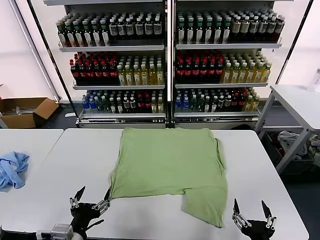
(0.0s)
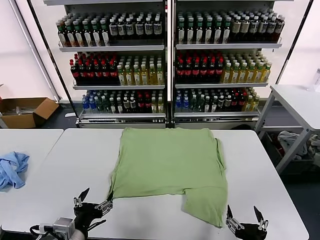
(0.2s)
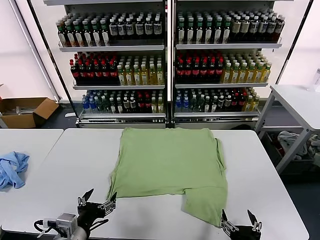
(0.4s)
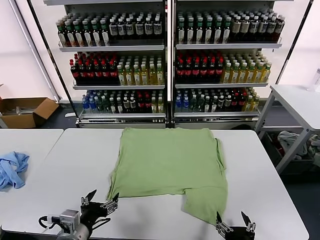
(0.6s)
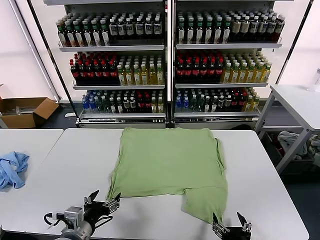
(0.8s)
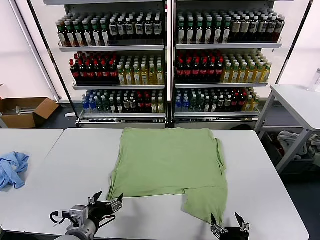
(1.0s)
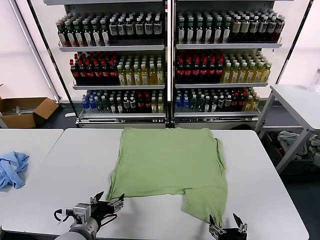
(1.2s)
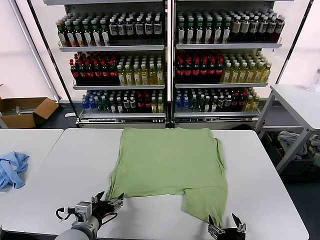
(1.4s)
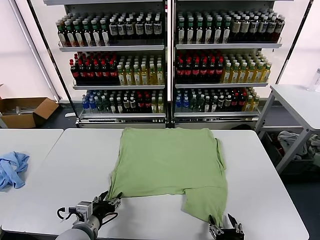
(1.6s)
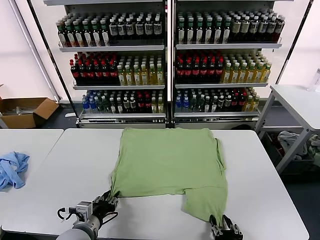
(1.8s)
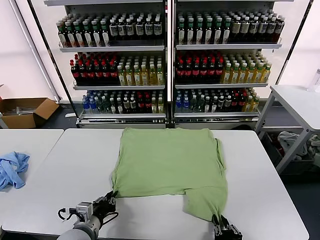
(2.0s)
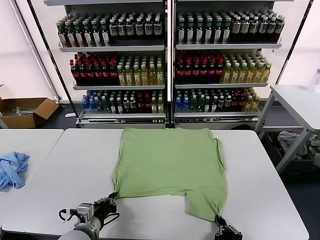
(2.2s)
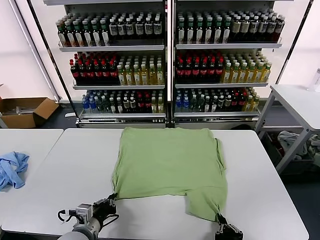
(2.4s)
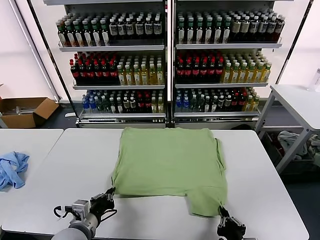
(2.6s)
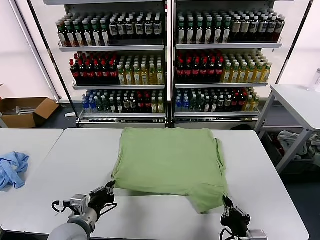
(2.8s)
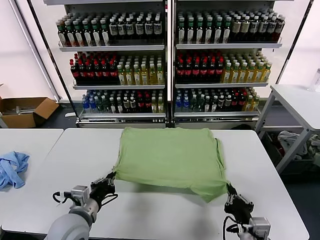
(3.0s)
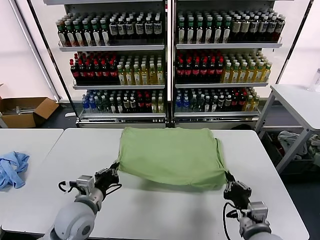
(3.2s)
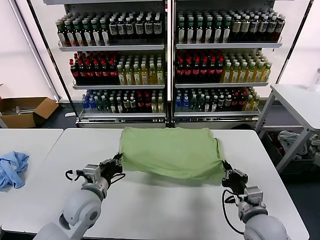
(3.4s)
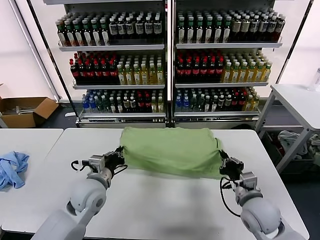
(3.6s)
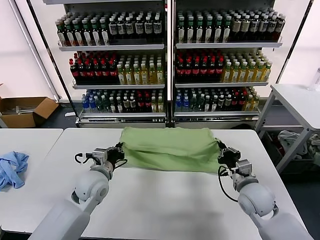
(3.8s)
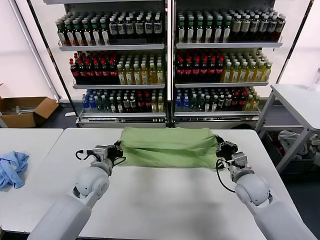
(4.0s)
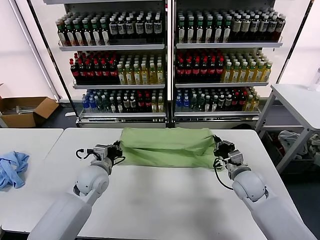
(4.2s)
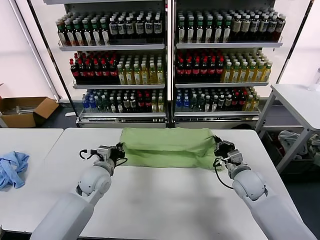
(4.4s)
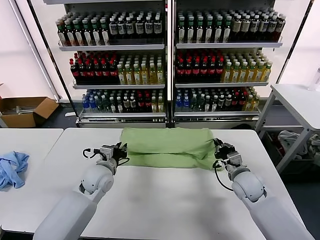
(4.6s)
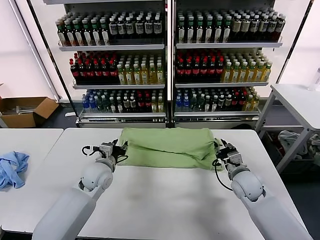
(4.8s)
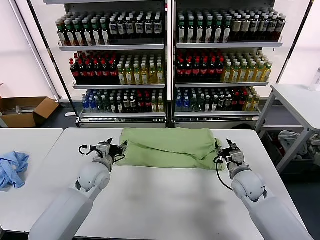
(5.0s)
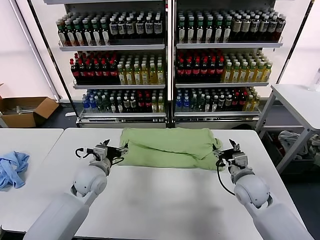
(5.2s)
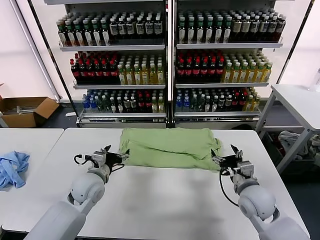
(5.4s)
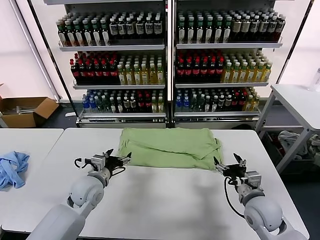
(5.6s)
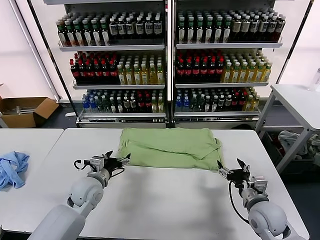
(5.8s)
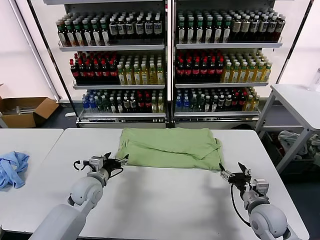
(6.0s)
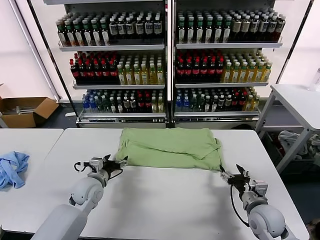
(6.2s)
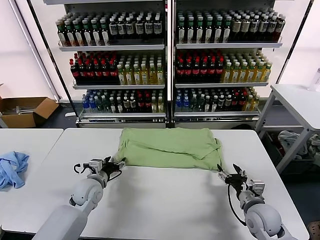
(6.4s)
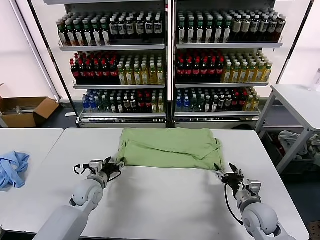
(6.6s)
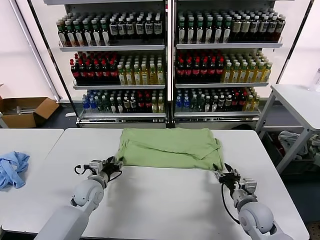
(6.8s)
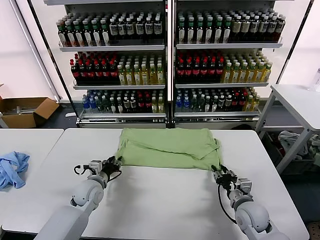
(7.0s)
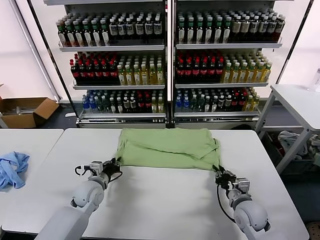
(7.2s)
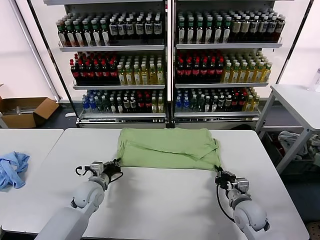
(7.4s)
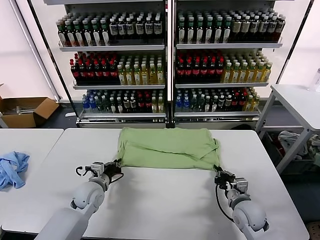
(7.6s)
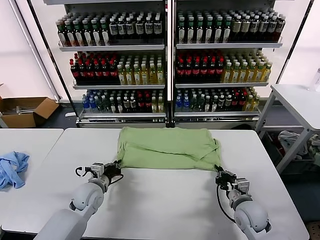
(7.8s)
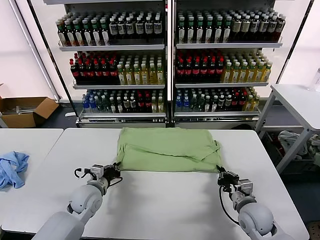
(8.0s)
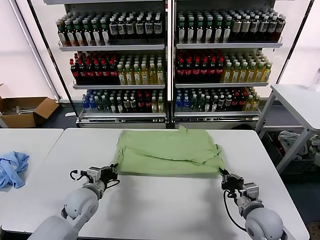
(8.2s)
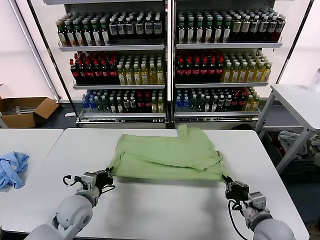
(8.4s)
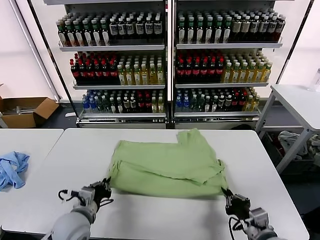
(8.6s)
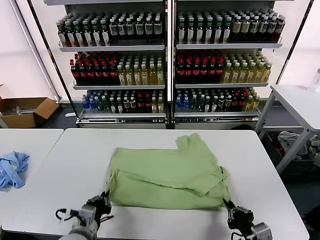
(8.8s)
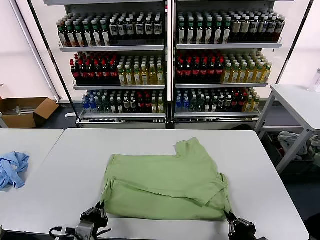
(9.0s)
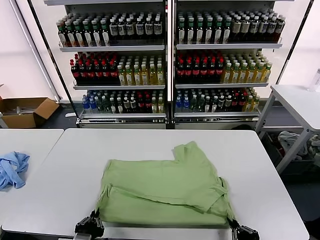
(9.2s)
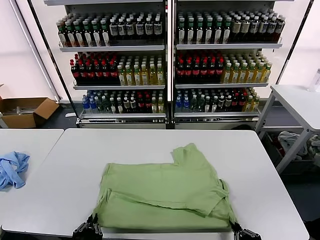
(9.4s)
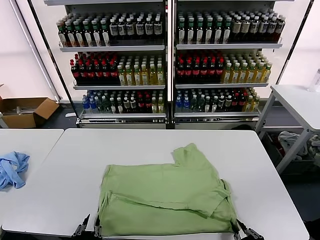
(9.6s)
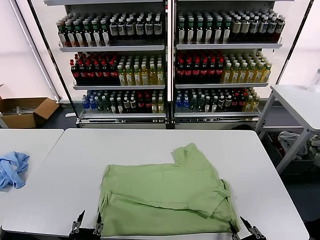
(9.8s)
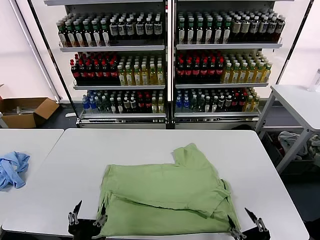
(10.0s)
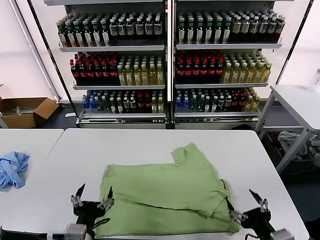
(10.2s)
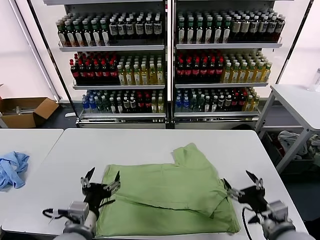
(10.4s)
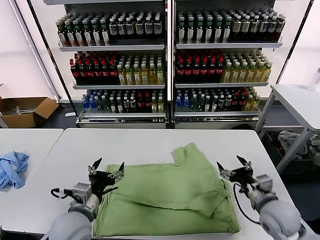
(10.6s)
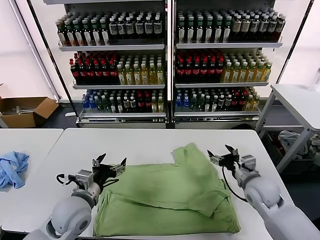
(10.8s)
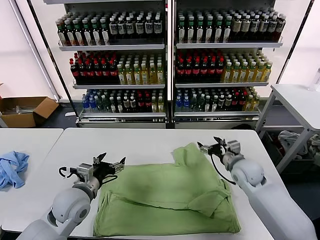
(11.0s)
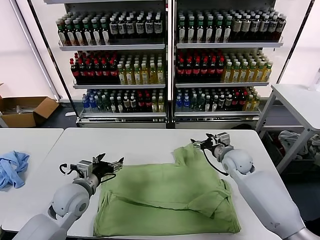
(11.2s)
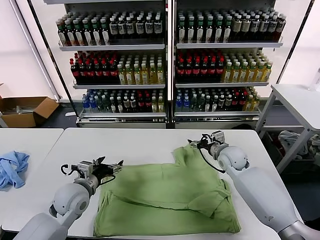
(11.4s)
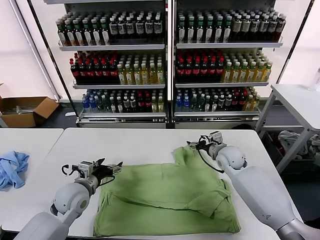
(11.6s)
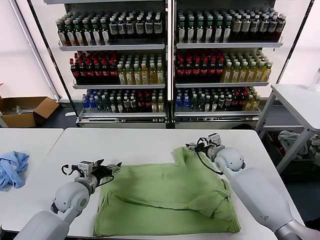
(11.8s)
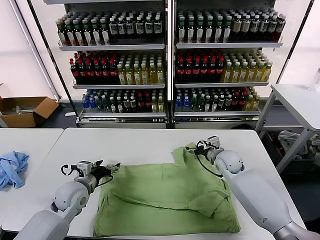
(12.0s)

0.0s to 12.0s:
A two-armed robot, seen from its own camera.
Task of the whole recording: fold and organize the clothes.
Step, 0.0s to 2.2s: use both grippers simultaneously to clamp the lower edge of the clothing fabric.
Step, 2.4s to 5.0s: use both grippers to drag the lower edge of the fabric forward and fold it over the upper edge.
Step, 5.2s to 9.6s: Drag the clothes downward with both gripper.
1.6s to 3.0s: The right gripper heads forward, covering some 10 cm, and closes up. The left gripper changes place by approximately 5 cm, and closes up.
3.0s to 4.4s: The two grippers go about 20 cm forward.
4.4s to 6.0s: The left gripper changes place by approximately 5 cm, and opens its fingers. The right gripper travels backward by about 10 cm, and opens its fingers.
6.0s to 7.6s: The right gripper changes place by roughly 5 cm, and closes its fingers. Meanwhile the left gripper closes.
7.6s to 9.0s: Both grippers move backward, roughly 20 cm.
9.0s to 10.4s: The right gripper moves forward, about 15 cm, and opens its fingers; the left gripper heads upward, covering roughly 5 cm, moves approximately 5 cm backward and comes back, and opens up.
10.4s to 12.0s: The right gripper shifts approximately 25 cm forward; the left gripper heads forward and to the left, covering some 20 cm.

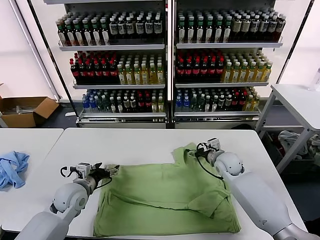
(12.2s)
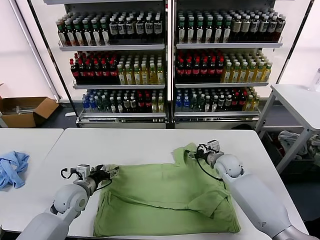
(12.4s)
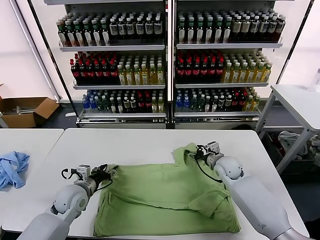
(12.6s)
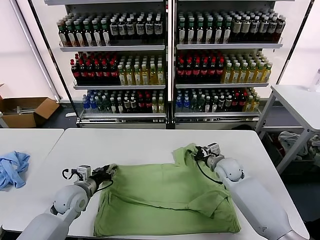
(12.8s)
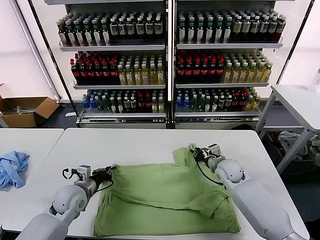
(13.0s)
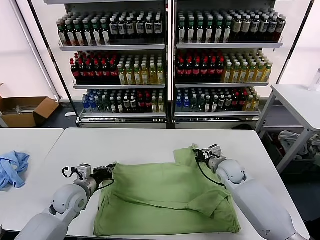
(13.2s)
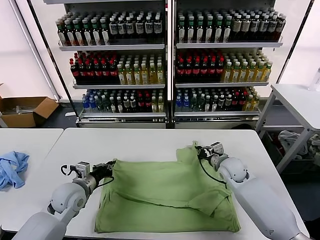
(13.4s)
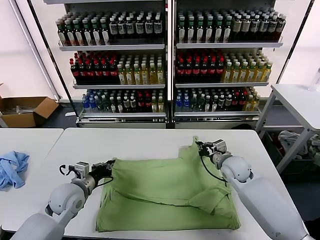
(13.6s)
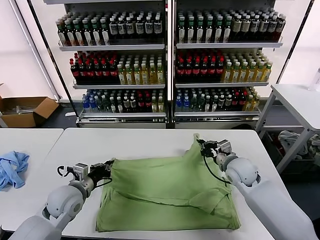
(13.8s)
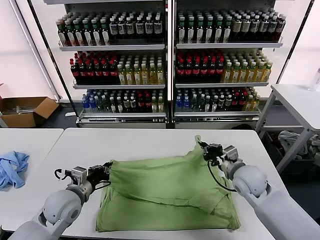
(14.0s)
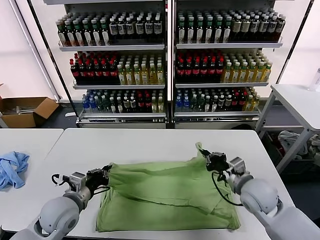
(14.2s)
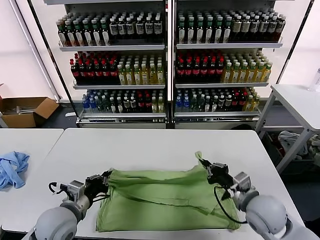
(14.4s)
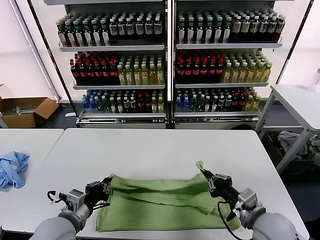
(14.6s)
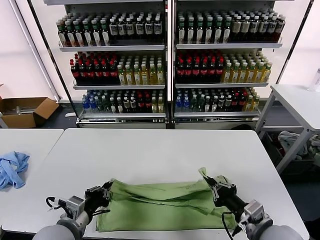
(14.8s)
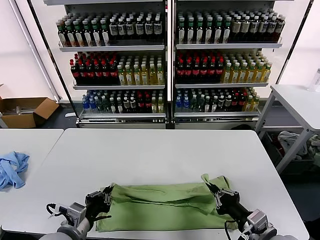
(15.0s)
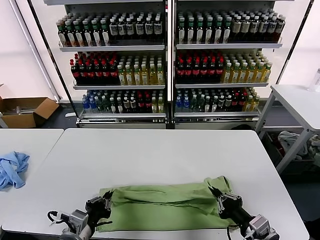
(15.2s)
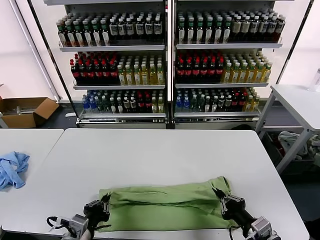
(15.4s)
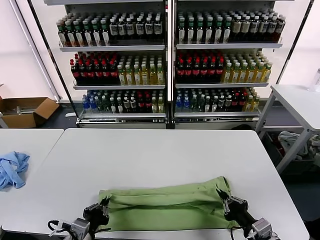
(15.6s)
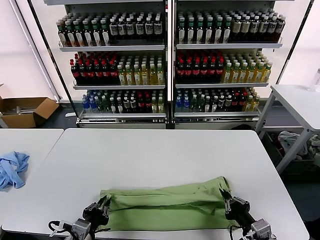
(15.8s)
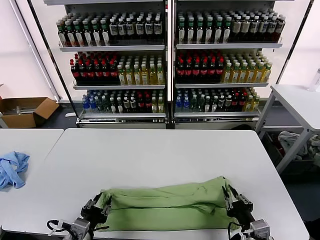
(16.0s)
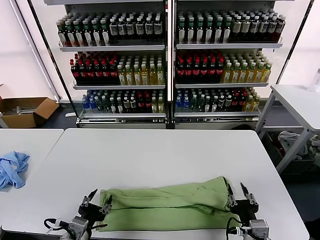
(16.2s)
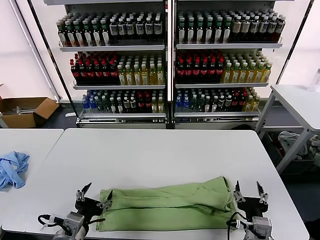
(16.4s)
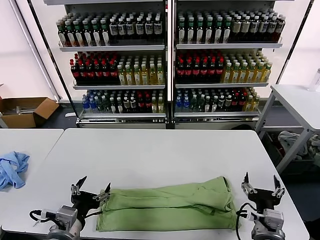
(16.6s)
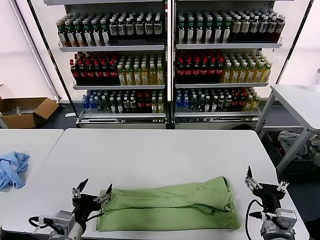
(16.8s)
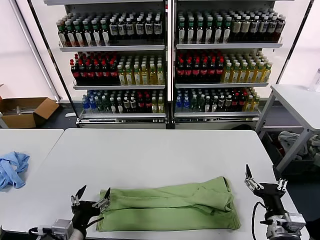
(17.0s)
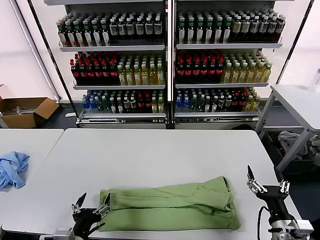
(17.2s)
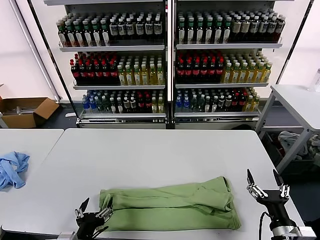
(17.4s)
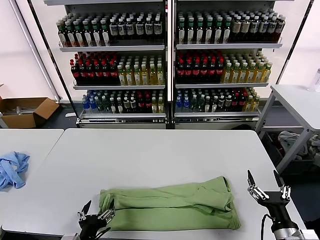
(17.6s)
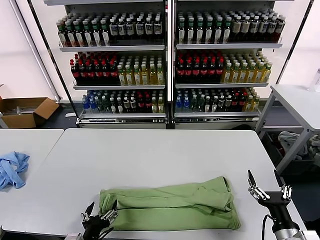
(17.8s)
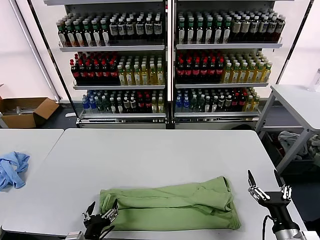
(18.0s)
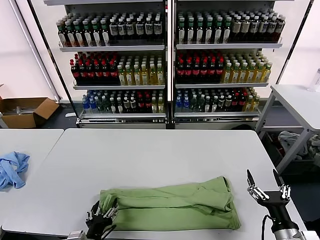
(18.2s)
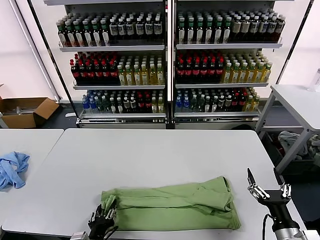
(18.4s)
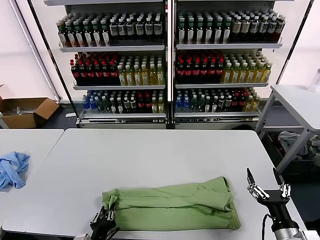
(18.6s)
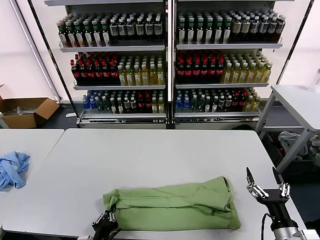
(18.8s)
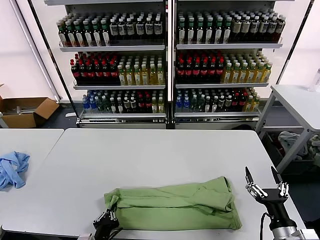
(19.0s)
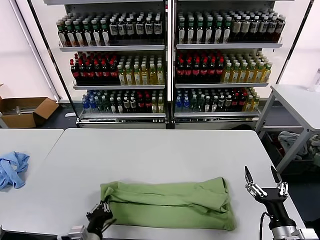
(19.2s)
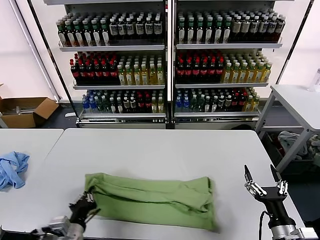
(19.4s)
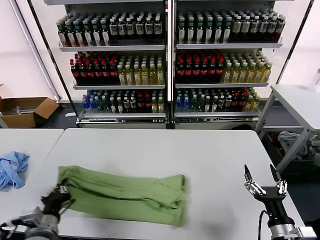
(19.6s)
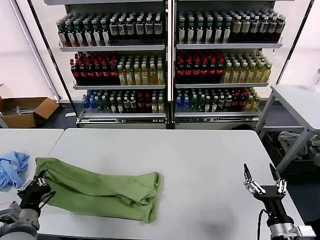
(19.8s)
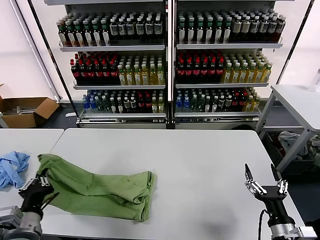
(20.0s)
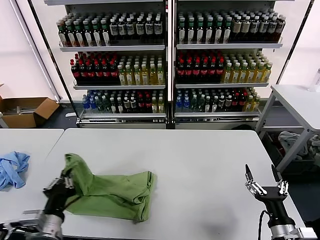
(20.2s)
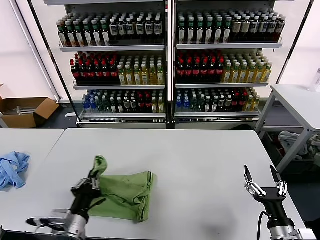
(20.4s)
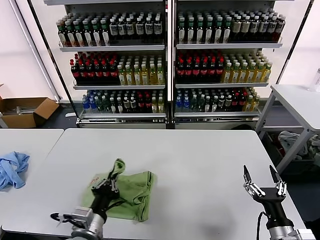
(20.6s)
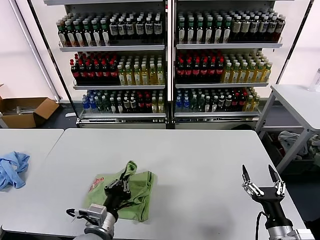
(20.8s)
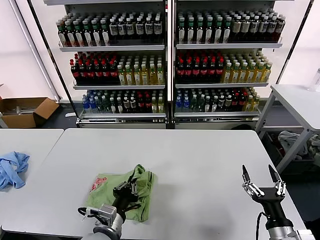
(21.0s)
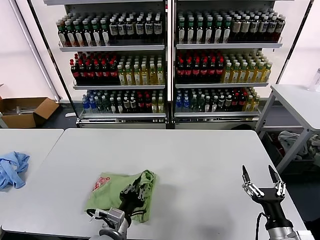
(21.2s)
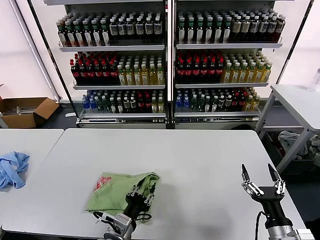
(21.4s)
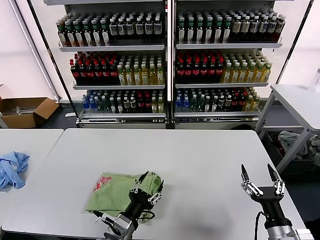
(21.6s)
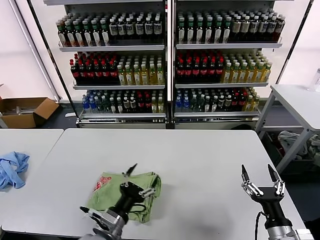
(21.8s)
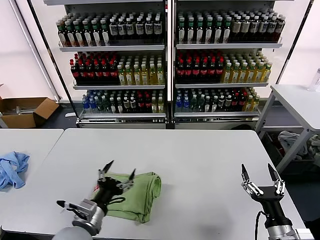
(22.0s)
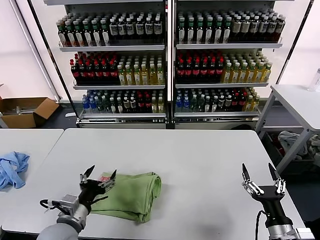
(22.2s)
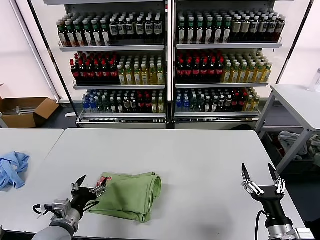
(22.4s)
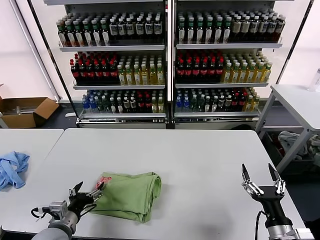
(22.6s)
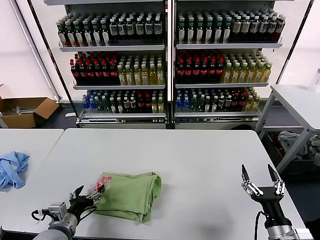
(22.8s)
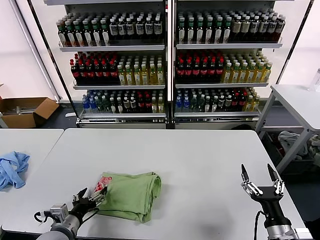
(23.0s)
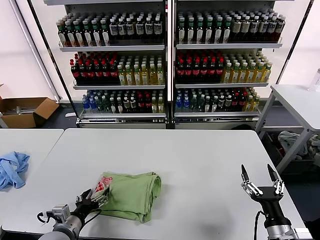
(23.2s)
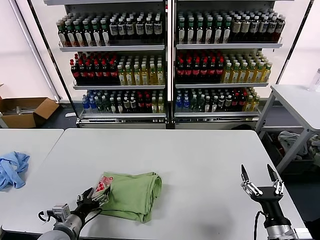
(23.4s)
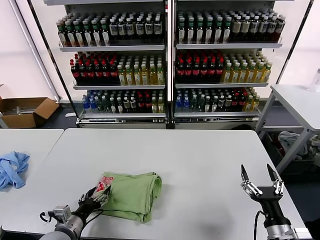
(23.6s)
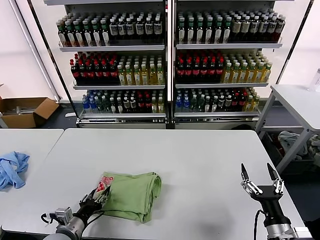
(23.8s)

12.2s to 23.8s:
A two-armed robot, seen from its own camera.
Task of the whole recording: fold and organize the clothes.
Step, 13.4s to 16.0s: use both grippers to drag the upper edge of the fabric backward and fold it over the lower edge.
Step, 16.2s to 18.8s: use the left gripper to clamp the left edge of the fabric.
Step, 19.2s to 21.4s: use the left gripper to drag the left edge of the fabric to the left and folds it over the right edge.
12.2s to 13.6s: The left gripper closes up. The right gripper changes place by about 5 cm, and closes.
13.6s to 15.0s: The right gripper shifts some 25 cm backward. The left gripper goes roughly 15 cm backward.
15.0s to 16.6s: The left gripper opens; the right gripper opens.
16.6s to 18.0s: The left gripper moves downward, some 10 cm; the right gripper moves to the right, about 5 cm.
18.0s to 19.4s: The left gripper closes its fingers.
19.4s to 21.0s: The left gripper travels to the right by approximately 10 cm.
21.0s to 22.4s: The left gripper heads to the left, covering roughly 10 cm, and opens its fingers.
22.4s to 23.8s: The left gripper goes about 5 cm downward.
